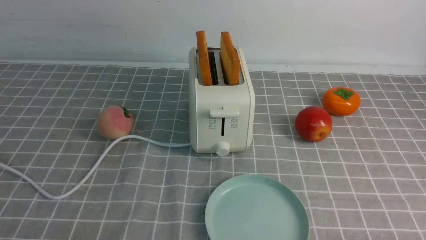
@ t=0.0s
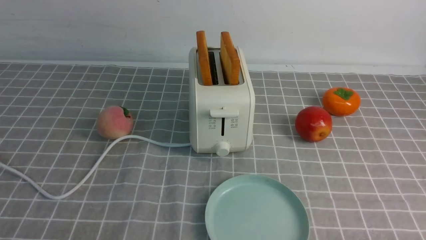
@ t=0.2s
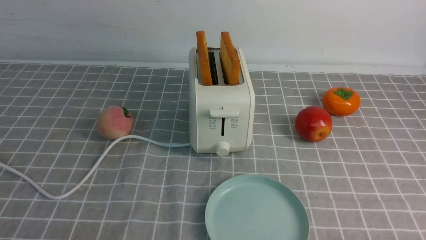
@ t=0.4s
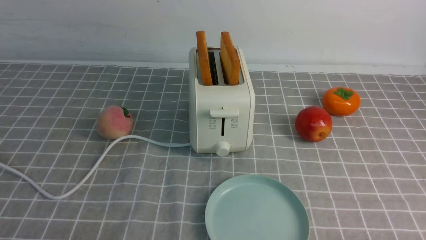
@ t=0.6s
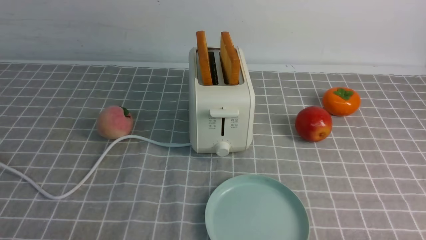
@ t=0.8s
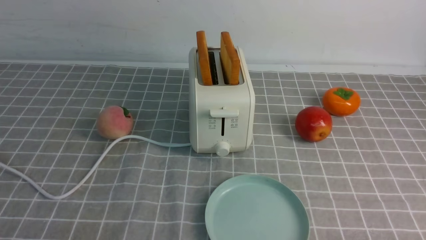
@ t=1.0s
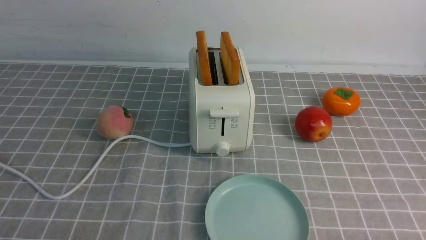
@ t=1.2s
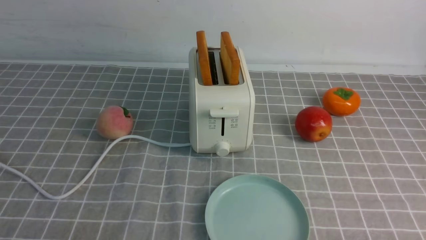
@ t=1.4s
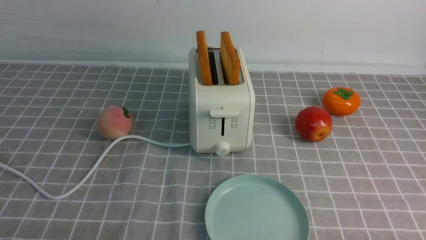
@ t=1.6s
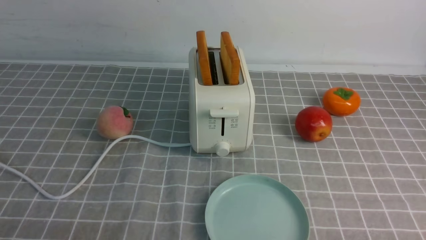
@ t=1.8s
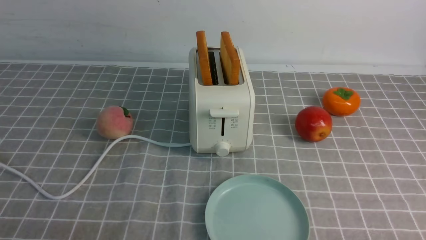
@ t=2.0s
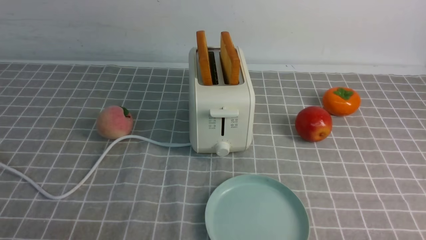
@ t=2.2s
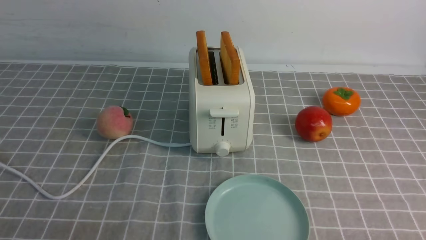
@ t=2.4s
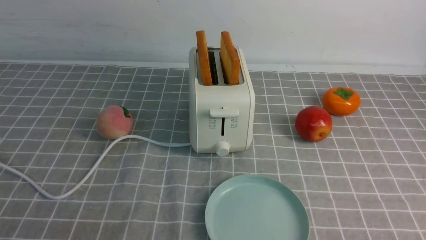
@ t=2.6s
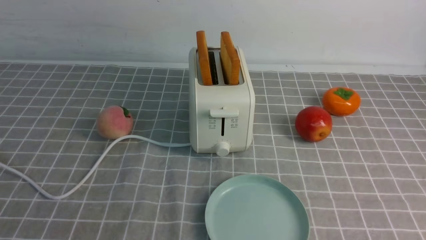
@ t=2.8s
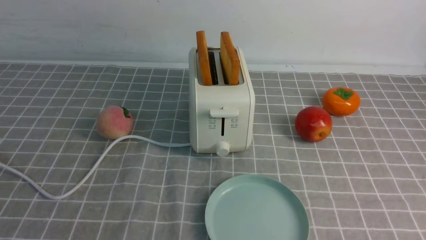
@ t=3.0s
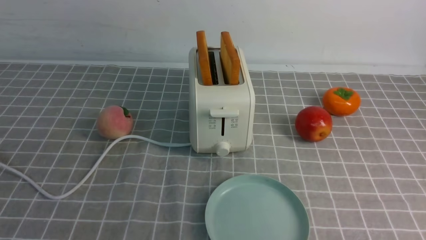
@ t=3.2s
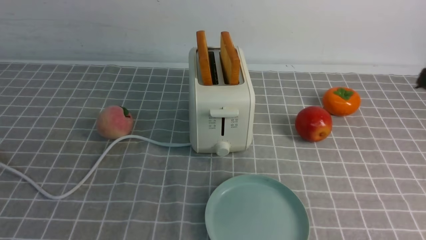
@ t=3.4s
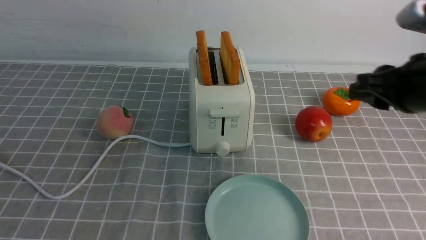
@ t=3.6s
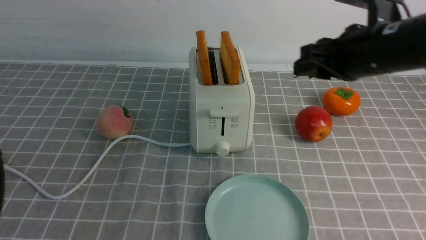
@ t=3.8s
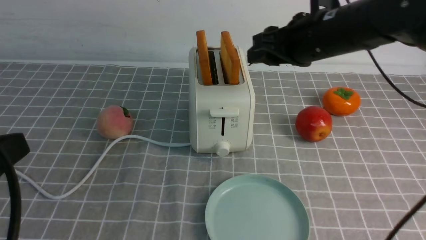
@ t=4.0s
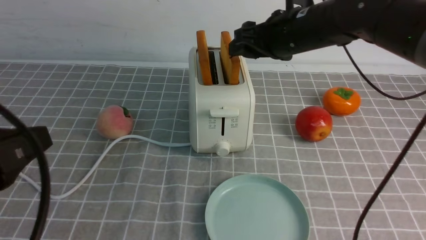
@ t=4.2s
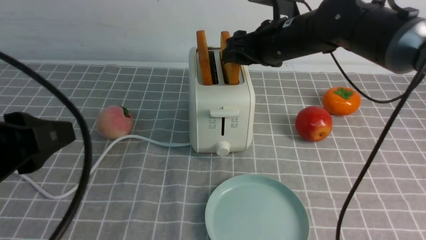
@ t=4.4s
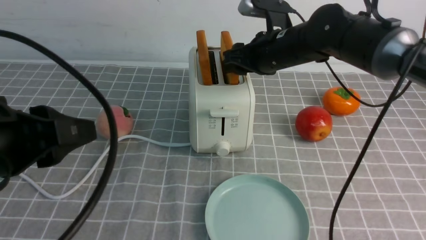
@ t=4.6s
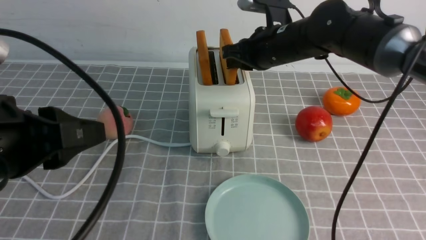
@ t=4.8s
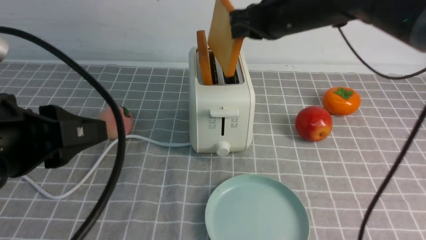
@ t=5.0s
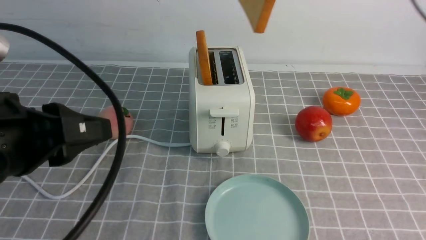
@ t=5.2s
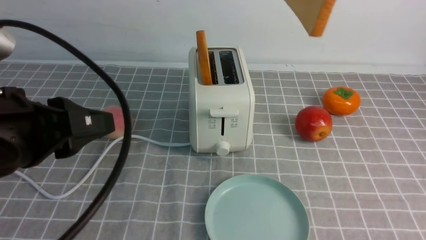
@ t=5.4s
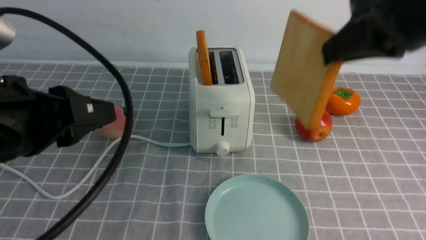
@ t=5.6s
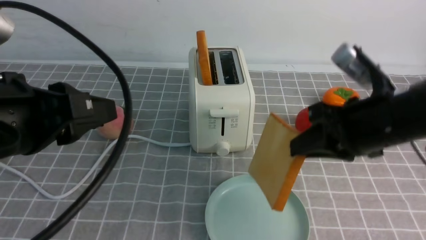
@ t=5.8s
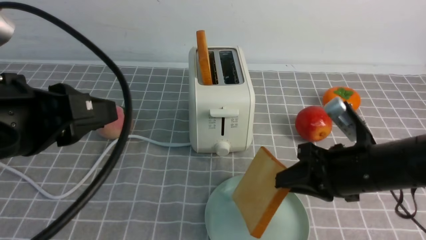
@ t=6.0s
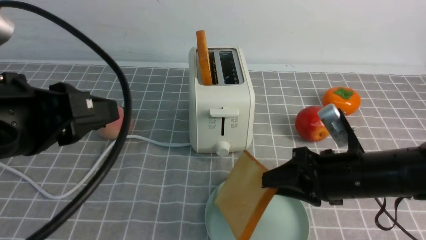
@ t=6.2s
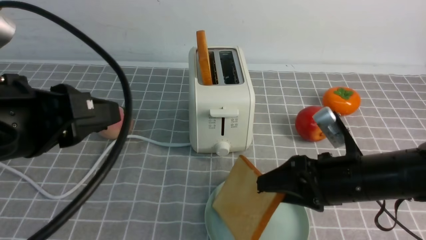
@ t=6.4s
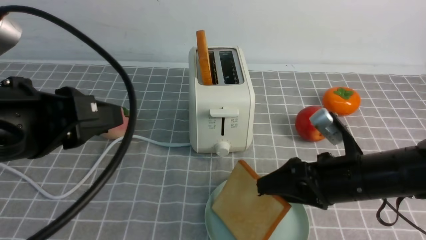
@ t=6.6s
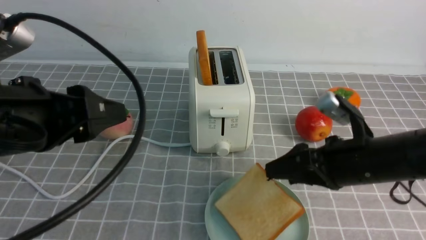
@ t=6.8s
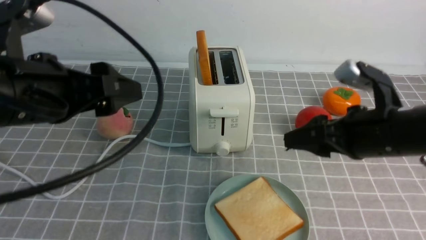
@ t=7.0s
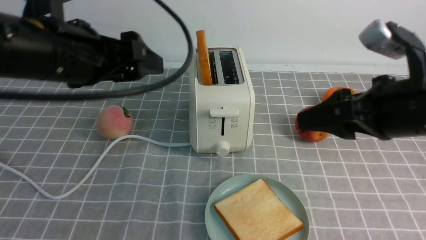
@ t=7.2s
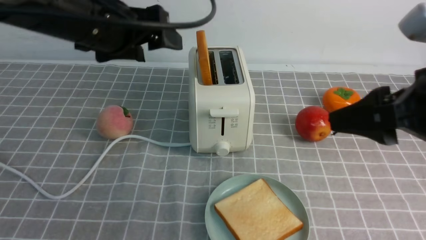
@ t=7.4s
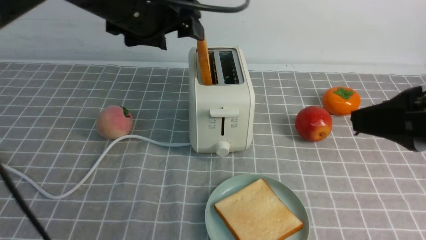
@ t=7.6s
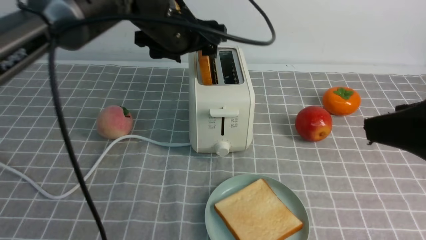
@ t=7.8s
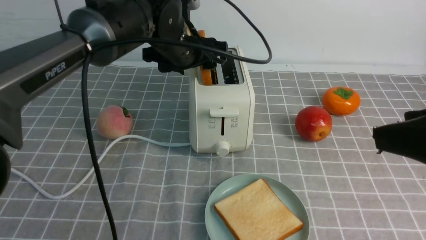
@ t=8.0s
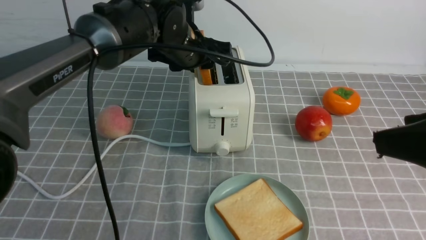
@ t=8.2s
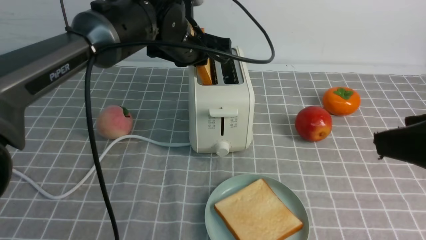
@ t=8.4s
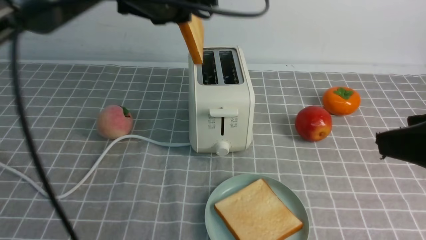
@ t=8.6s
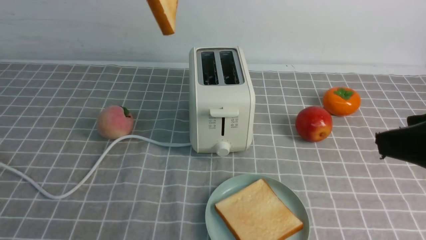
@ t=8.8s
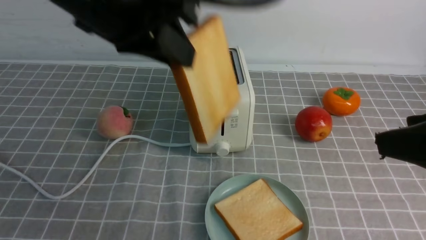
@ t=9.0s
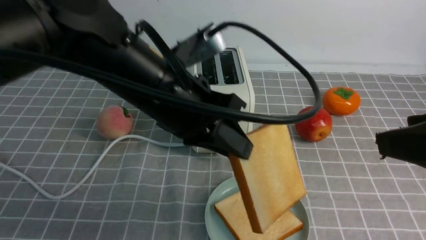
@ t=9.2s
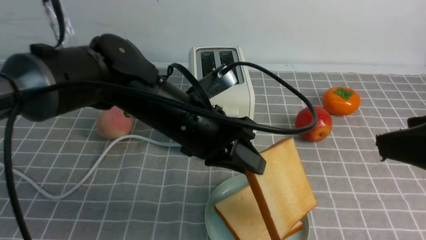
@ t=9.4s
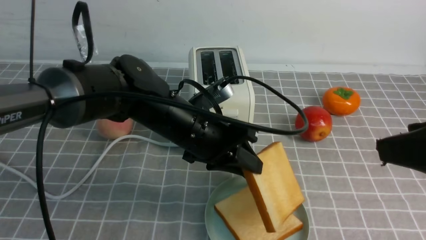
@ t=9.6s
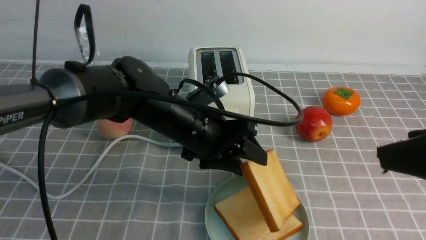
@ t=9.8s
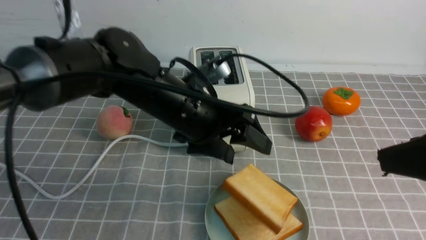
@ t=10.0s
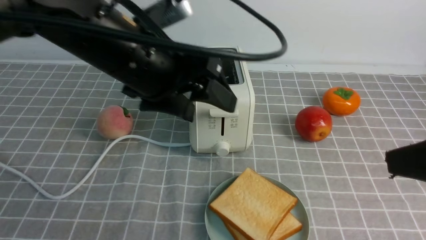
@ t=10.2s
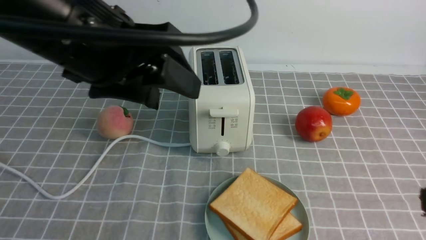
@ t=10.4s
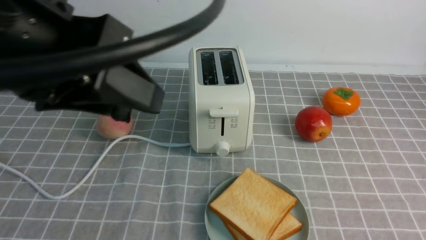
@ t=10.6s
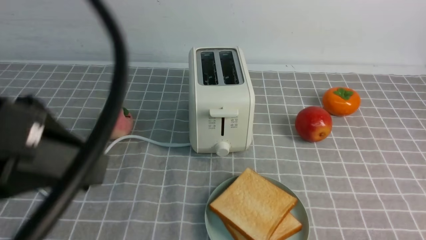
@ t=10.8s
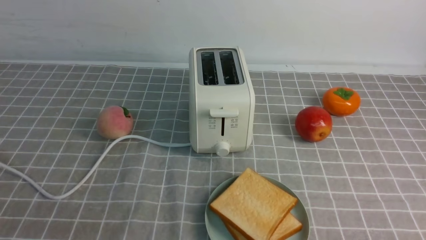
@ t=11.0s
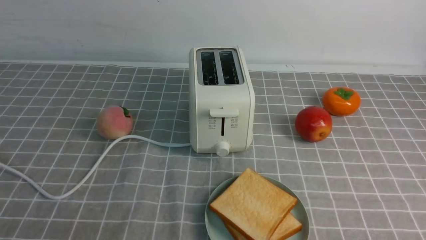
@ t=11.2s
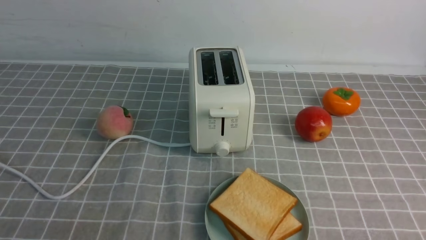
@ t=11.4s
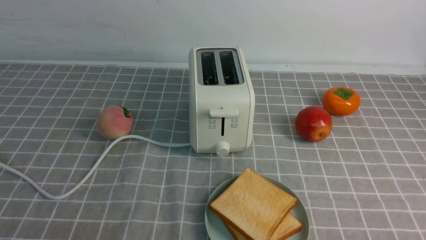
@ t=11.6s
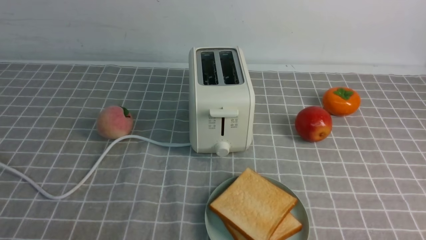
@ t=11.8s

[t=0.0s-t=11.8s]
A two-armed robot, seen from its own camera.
Task of the whole recording: take toasted bread from bread machine on grey coffee table place on plate.
Step, t=0.0s to t=5.0s: use the right arm to take out a slice of bread.
Step, t=5.2s to t=7.0s: use the right arm to put a slice of bread into the plate.
Step, t=7.2s to t=8.8s: use the left arm to take out a slice of bread.
Step, t=9.0s to t=10.0s: use the left arm to put a slice of bread into the empty plate.
t=0.0s to t=1.4s: The two grippers keep their place.
t=3.0s to t=4.4s: The left gripper moves forward, approximately 10 cm, while the right gripper shifts approximately 40 cm forward and to the left, and opens.
t=4.4s to t=6.0s: The right gripper heads backward and to the right, covering about 20 cm, goes upward and returns, some 15 cm each way, and closes up.
t=6.0s to t=7.4s: The left gripper shifts some 15 cm forward, and opens up. The right gripper shifts roughly 15 cm upward and backward, and opens its fingers.
t=7.4s to t=8.8s: The left gripper is displaced upward by approximately 5 cm, and closes up, while the right gripper moves backward, some 5 cm.
t=8.8s to t=10.4s: Both grippers move backward, roughly 5 cm. The left gripper moves about 20 cm downward and comes back, and opens its fingers.
t=10.4s to t=11.8s: The right gripper is displaced downward and backward by some 10 cm, and closes. The left gripper heads backward, downward and to the left, covering about 25 cm, and closes.

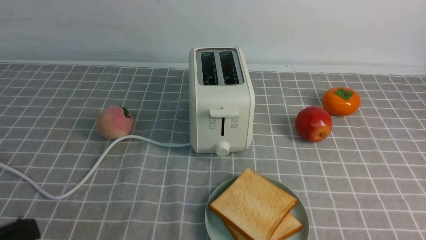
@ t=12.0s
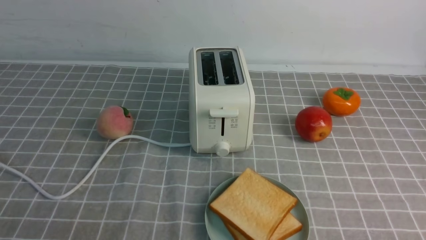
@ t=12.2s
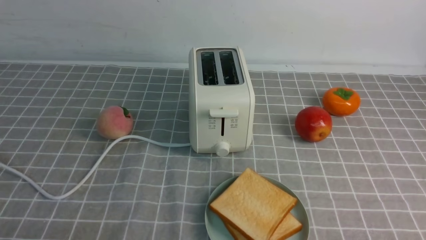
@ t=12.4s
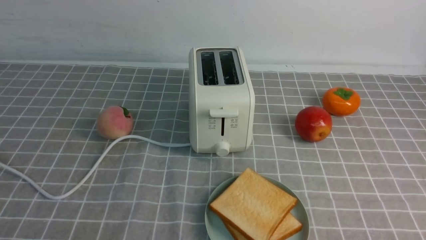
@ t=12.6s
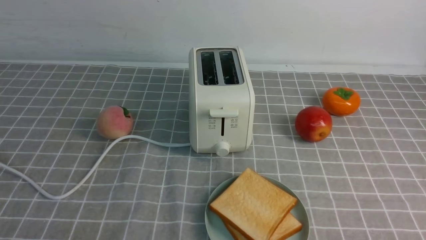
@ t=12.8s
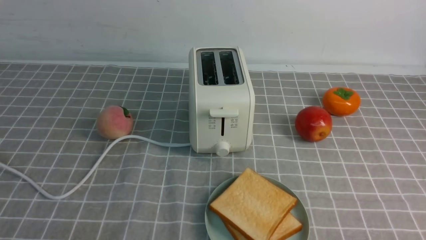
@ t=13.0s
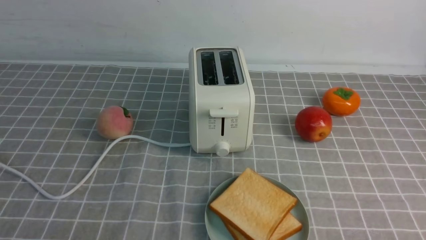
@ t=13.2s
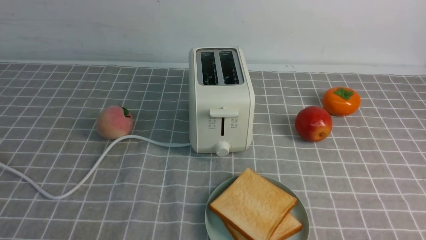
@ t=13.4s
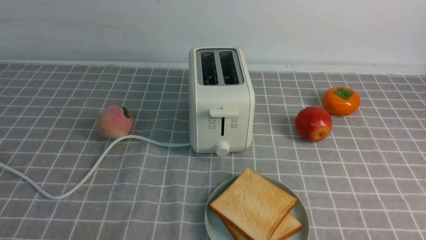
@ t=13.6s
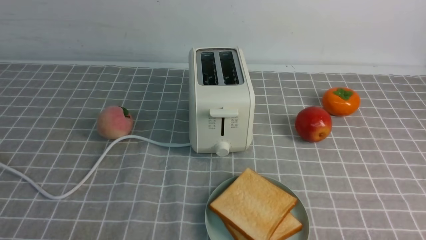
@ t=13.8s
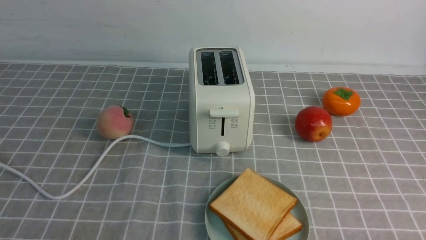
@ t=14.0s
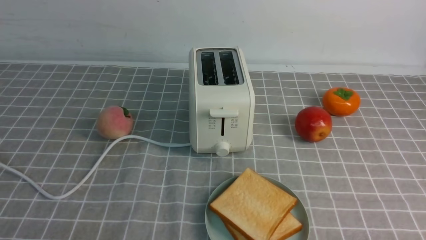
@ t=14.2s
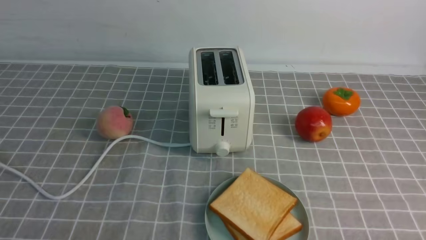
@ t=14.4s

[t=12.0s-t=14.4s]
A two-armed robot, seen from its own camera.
Task of the whole recording: take toasted bread from bread machine on grey coffee table place on plate.
t=12.0s to t=13.2s: The left gripper heads downward, covering some 10 cm.
